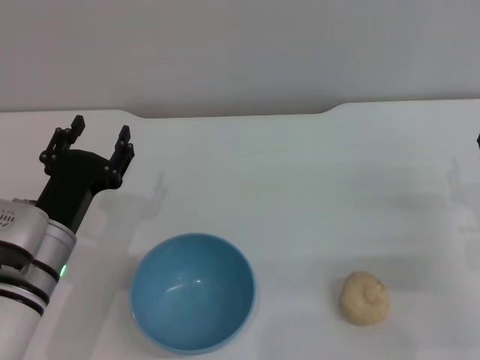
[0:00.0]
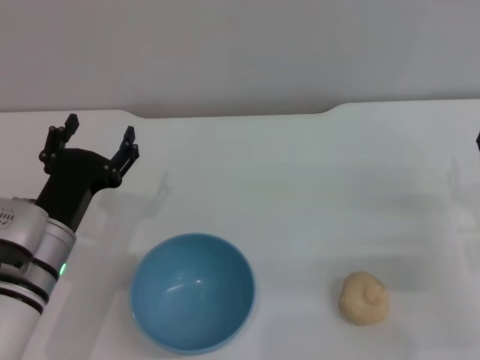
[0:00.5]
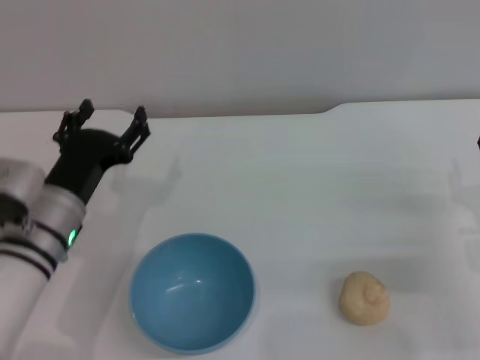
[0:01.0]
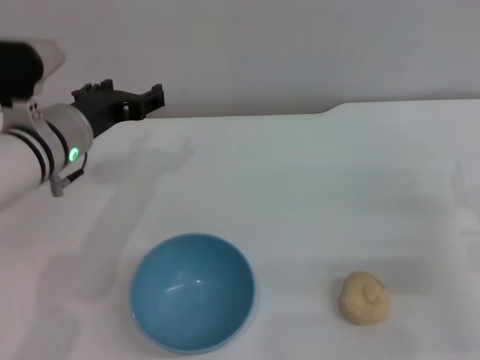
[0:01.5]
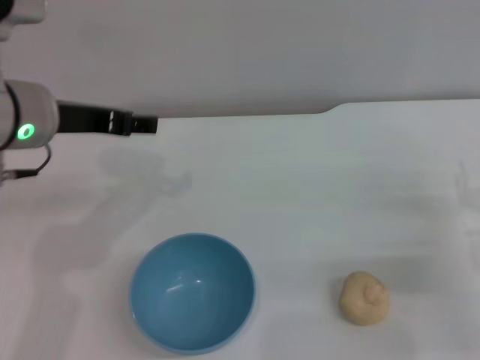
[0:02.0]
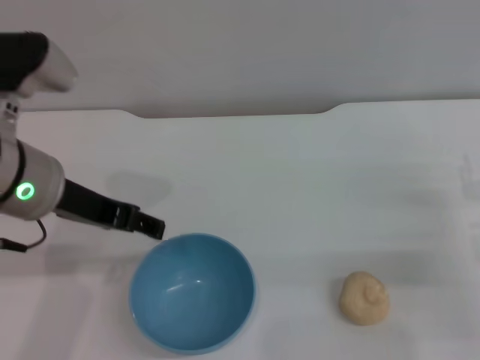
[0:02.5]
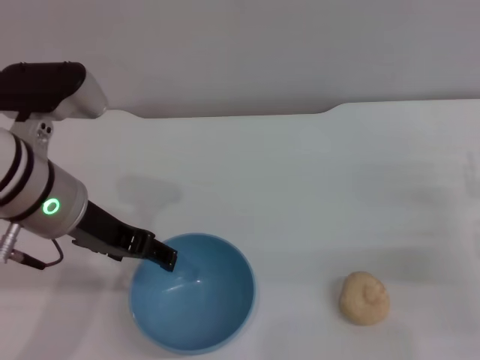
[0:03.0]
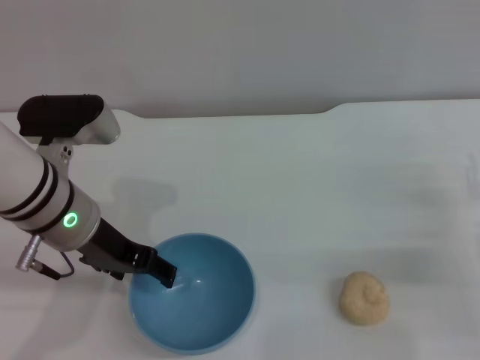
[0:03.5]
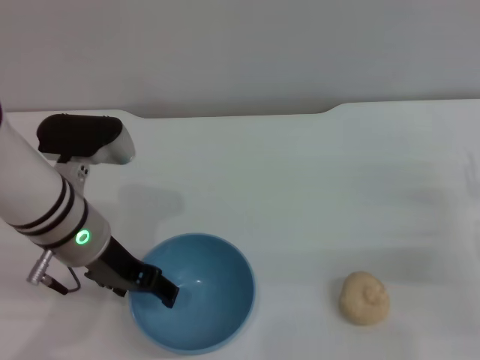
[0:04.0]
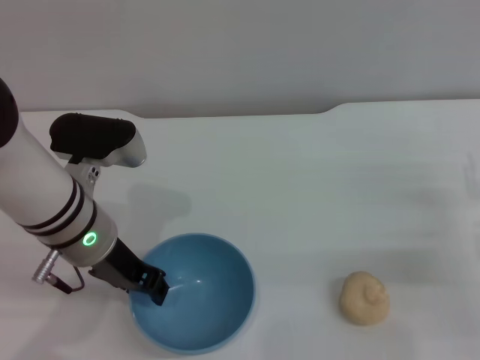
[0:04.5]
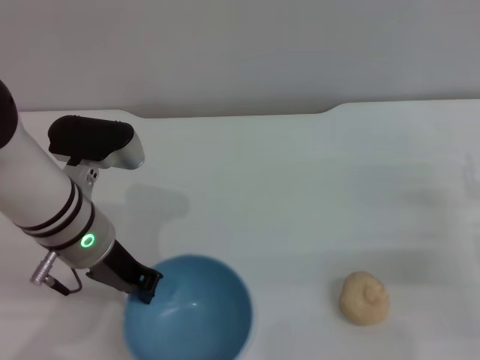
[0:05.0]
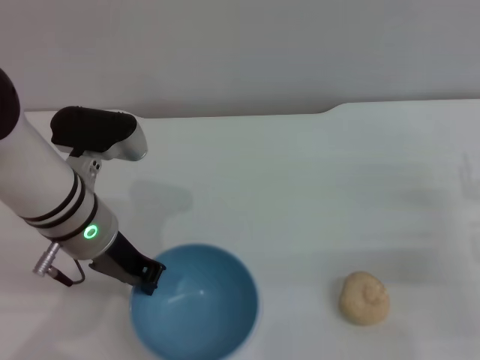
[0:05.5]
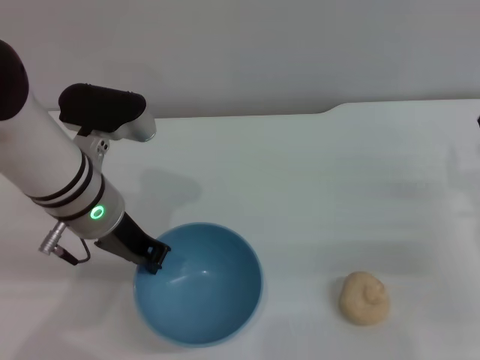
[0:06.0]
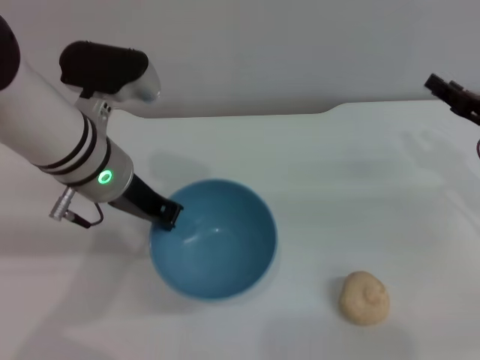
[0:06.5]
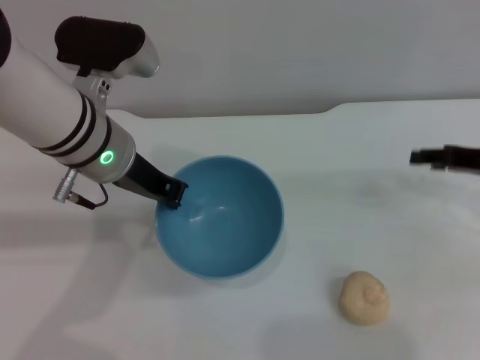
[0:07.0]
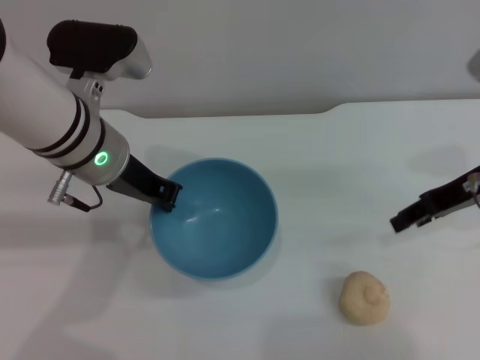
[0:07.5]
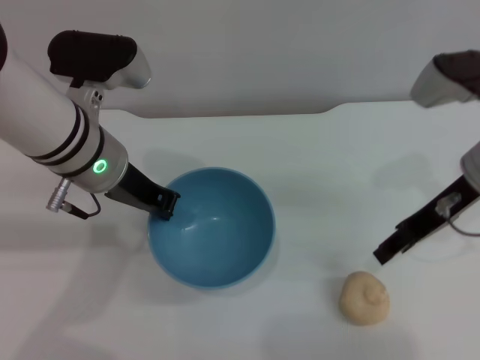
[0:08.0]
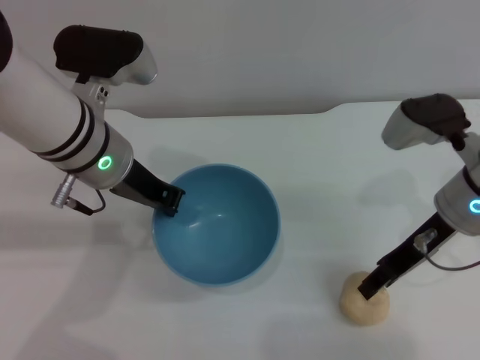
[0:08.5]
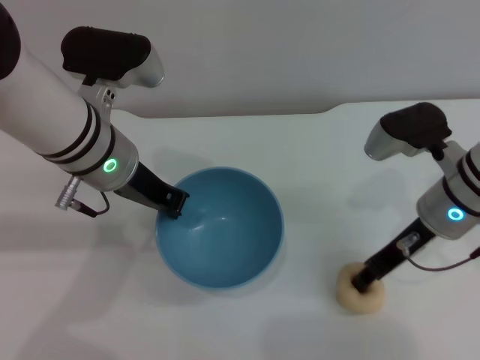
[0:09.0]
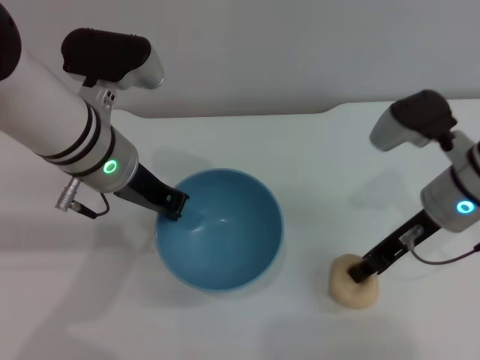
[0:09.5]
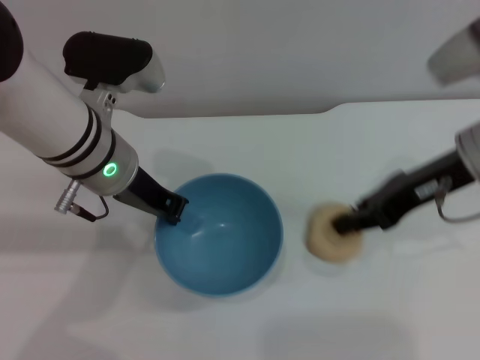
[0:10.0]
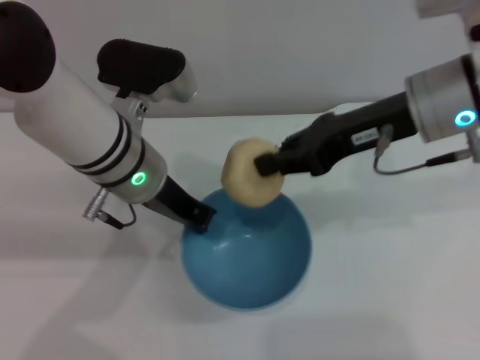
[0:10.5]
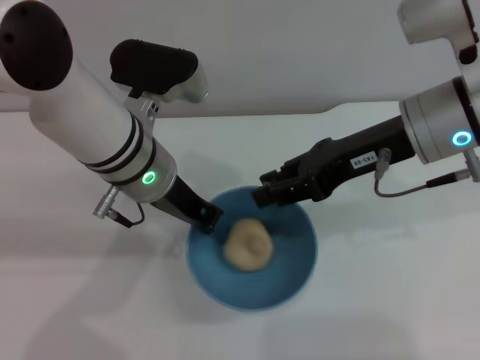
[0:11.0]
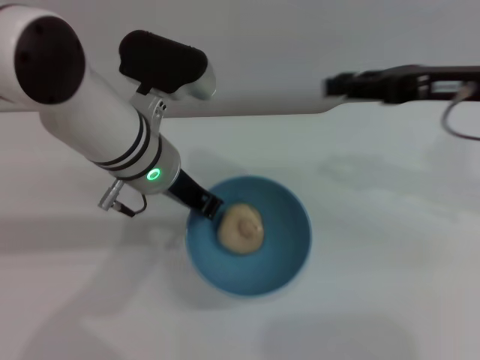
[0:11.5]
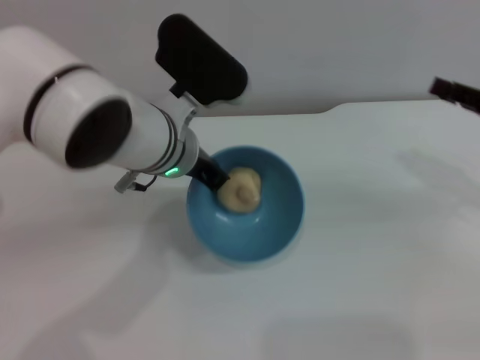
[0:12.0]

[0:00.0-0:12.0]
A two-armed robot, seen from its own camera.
Task of the whole recording: put the egg yolk pastry into the blue bowl and pour it out repeatedly.
Step, 0:00.0 to 0:07.0: Pick up the bowl with the left gripper.
Step, 0:07.5 to 0:09.5: Pick up the egg yolk pastry with the right gripper.
Step, 0:10.0 to 0:11.0: Place the egg yolk pastry into the bowl.
0:00.0 to 0:02.0: The left gripper is displaced upward by roughly 15 cm.
0:02.0 to 0:04.0: The left gripper is displaced downward by some 10 cm.
0:04.0 to 0:06.0: The left gripper closes.
0:06.0 to 0:08.0: The right gripper is displaced upward, to the left and forward by approximately 15 cm.
0:08.0 to 0:10.0: The right gripper closes.
0:10.0 to 0:12.0: The left gripper moves to the right, some 5 cm. The right gripper travels to the right and downward by approximately 15 cm, and opens up.

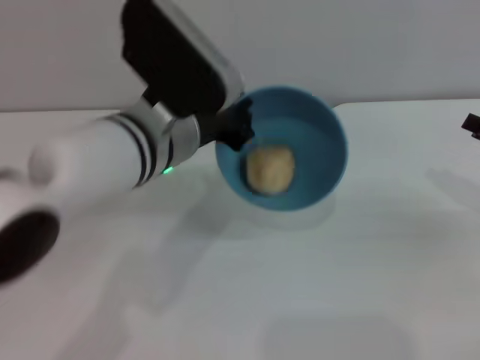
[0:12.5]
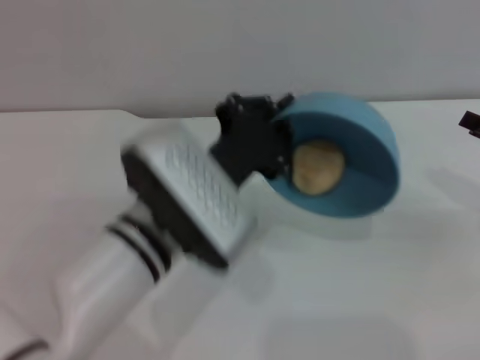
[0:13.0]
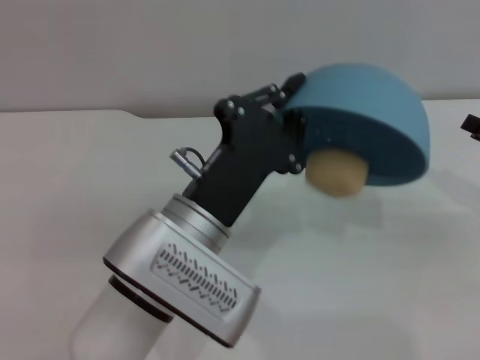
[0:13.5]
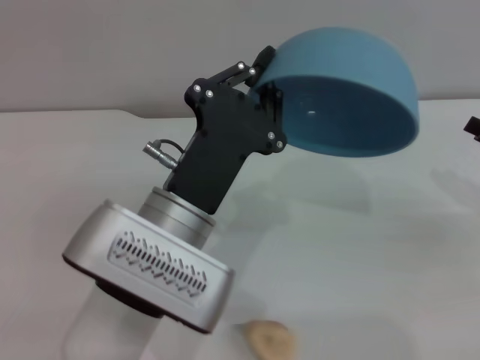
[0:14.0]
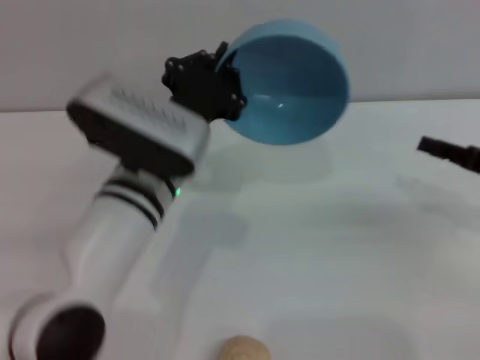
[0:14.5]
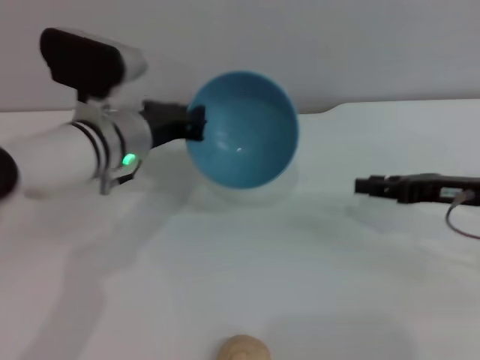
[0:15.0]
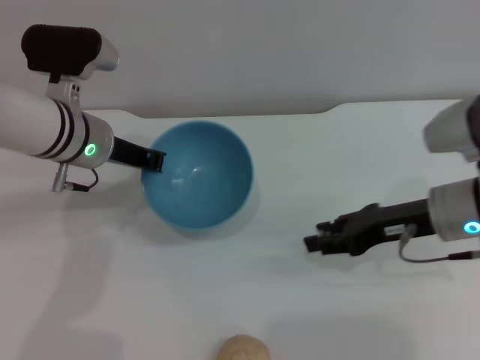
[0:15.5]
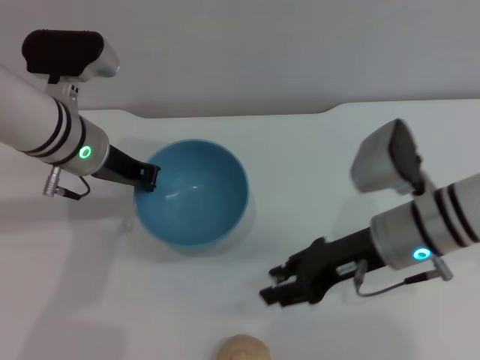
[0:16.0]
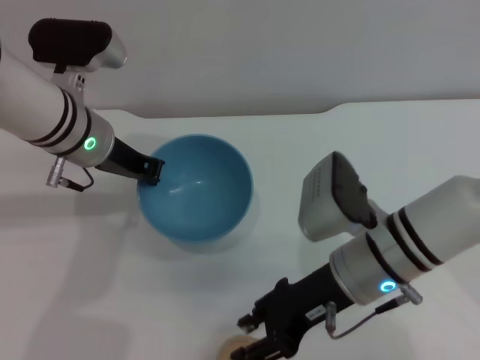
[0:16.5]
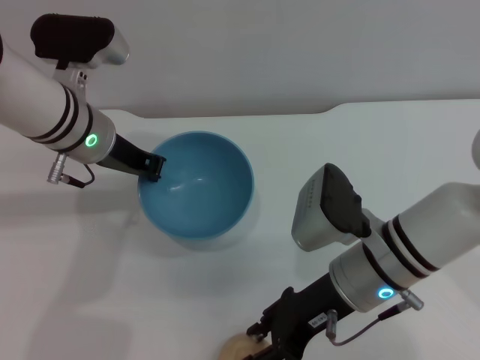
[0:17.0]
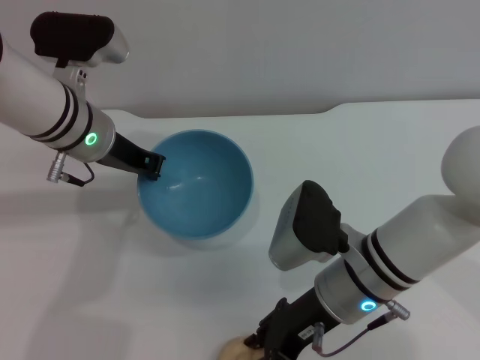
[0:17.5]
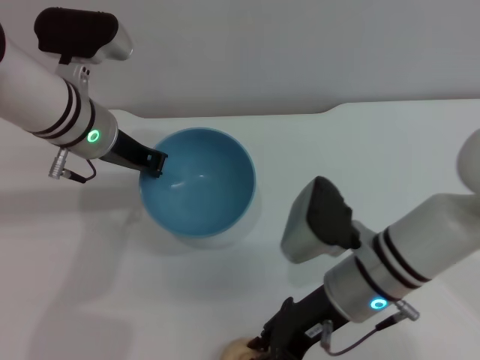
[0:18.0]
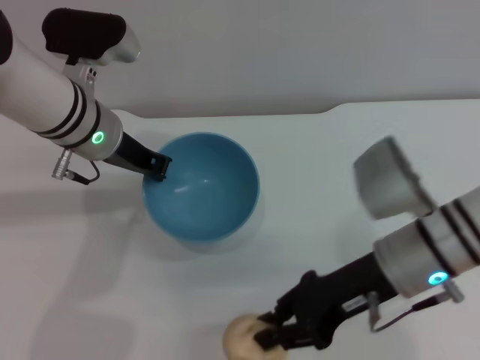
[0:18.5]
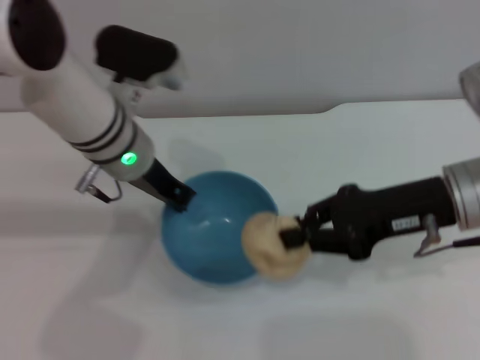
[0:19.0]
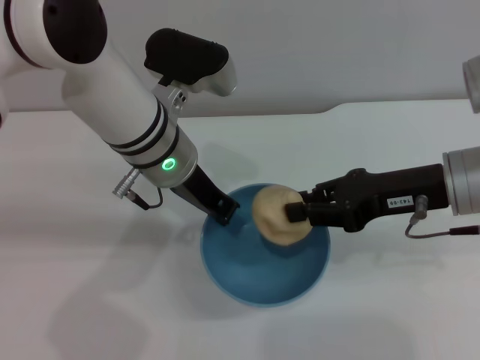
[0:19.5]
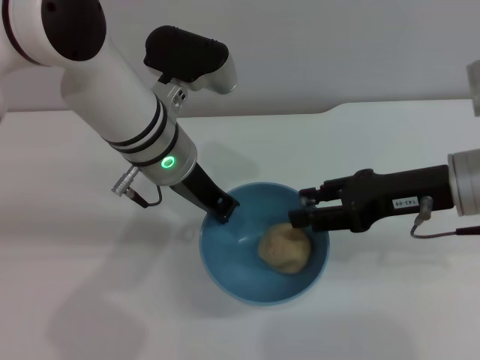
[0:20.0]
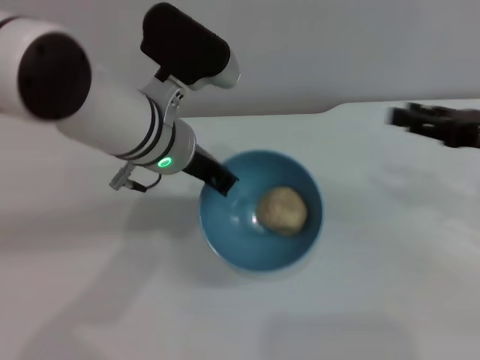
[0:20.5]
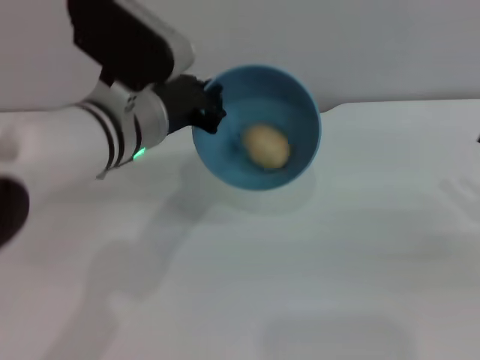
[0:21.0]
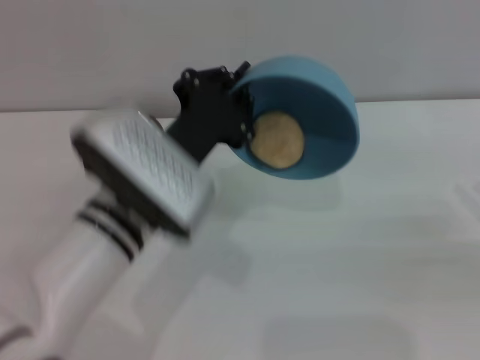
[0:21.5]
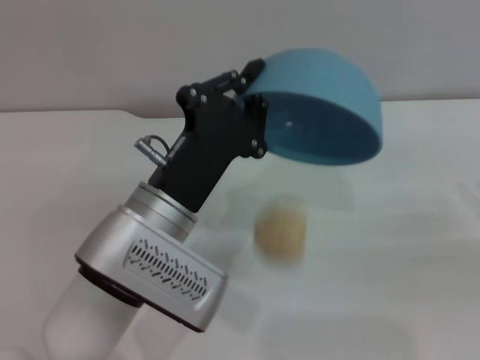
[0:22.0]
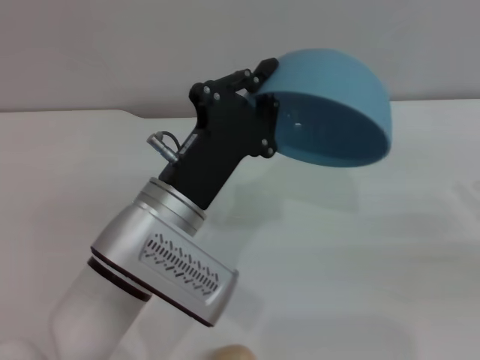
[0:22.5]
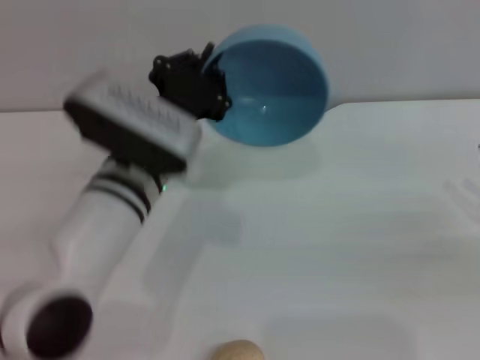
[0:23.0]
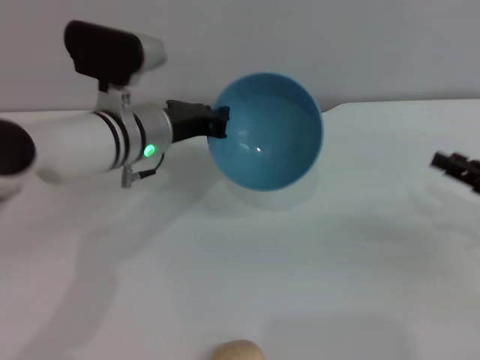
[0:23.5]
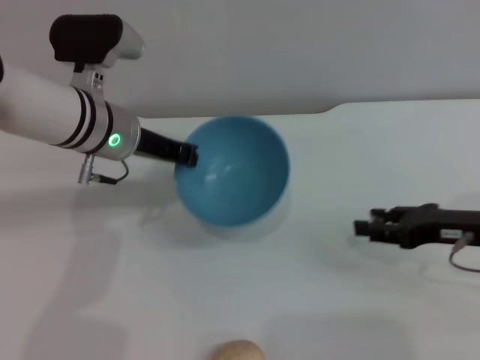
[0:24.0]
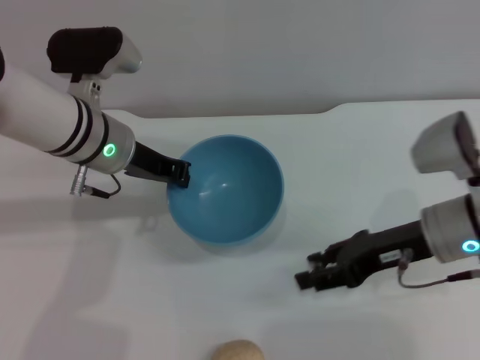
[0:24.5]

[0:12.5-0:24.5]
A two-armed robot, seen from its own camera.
Task of the whole recording: put the egg yolk pastry into the blue bowl and pour it out repeatedly.
Step, 0:14.0 to 0:18.0: Pick up the egg yolk pastry with the right gripper.
Step, 0:19.0 to 0:20.0: Place the egg yolk pastry into the bowl.
Step, 0:21.0 to 0:22.0: Pour the egg yolk pastry out of bowl.
0:12.5 to 0:14.5: The left gripper moves downward, about 5 cm, and travels backward and back again, roughly 10 cm each way.
0:14.5 to 0:16.5: The left gripper moves forward and to the left, about 10 cm. The right gripper is displaced to the left by about 20 cm.
0:16.5 to 0:18.5: The right gripper closes its fingers.
0:18.5 to 0:20.5: The right gripper shifts roughly 15 cm to the right, and opens its fingers, while the left gripper moves to the right, about 5 cm.
0:20.5 to 0:22.5: The right gripper is displaced to the right, downward and backward by some 10 cm. Meanwhile the left gripper heads backward and downward, covering roughly 10 cm.
0:22.5 to 0:24.5: The right gripper travels to the left by roughly 20 cm. The left gripper travels forward and to the left by about 15 cm.

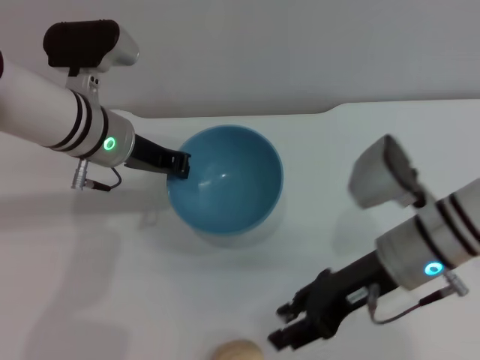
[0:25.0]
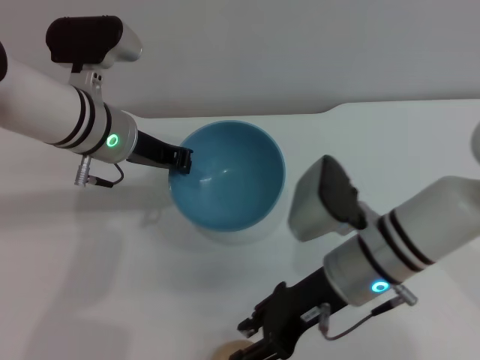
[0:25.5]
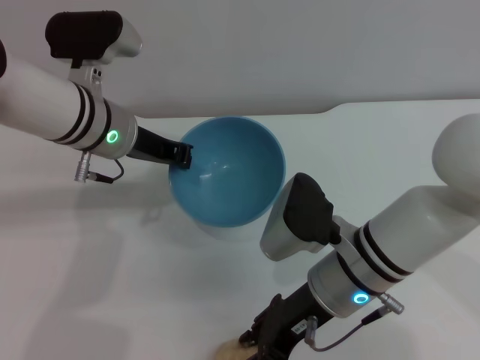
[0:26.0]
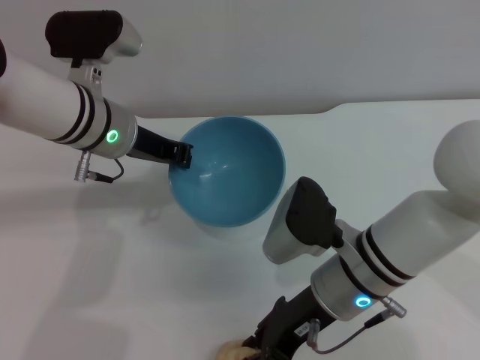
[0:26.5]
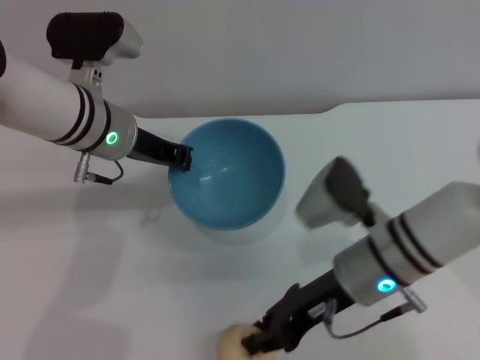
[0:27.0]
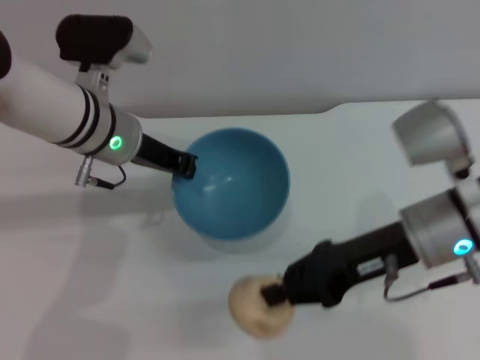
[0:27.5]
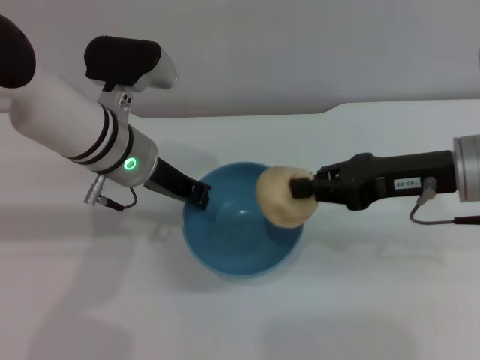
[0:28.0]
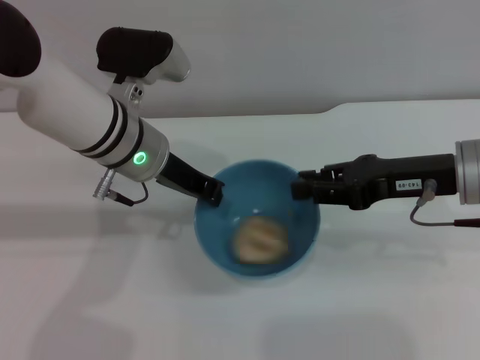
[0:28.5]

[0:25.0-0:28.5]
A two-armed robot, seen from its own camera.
Task of the whole recording: put the egg yolk pastry into the blue bowl and pour it out repeatedly.
Step, 0:25.0 to 0:27.0: Pick up the egg yolk pastry with the right gripper.
0:27.0 to 0:28.5: The right gripper shifts roughly 15 cm to the right and upward.
